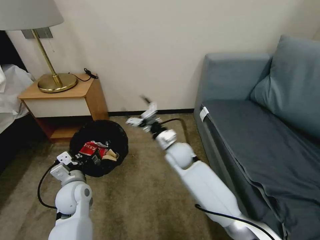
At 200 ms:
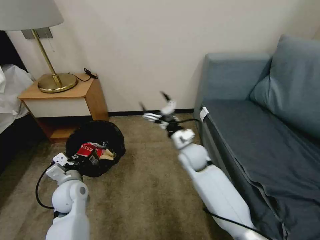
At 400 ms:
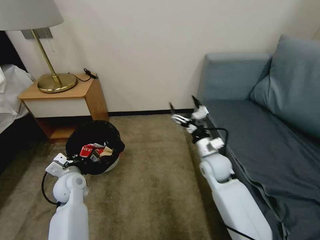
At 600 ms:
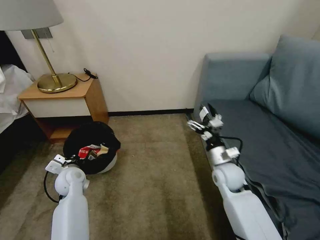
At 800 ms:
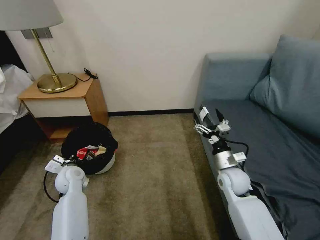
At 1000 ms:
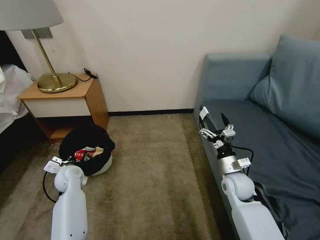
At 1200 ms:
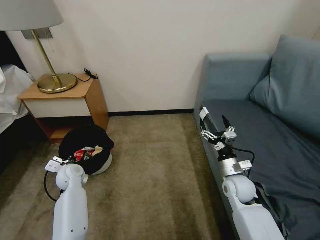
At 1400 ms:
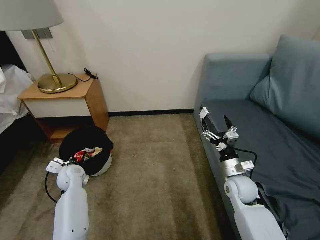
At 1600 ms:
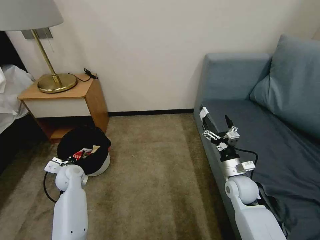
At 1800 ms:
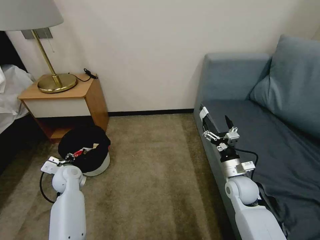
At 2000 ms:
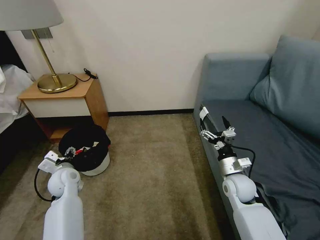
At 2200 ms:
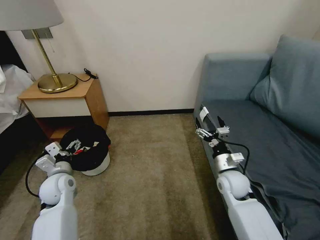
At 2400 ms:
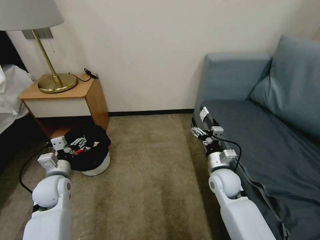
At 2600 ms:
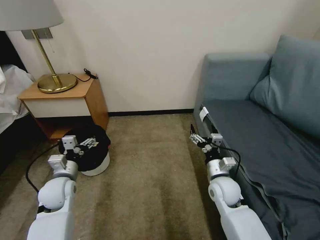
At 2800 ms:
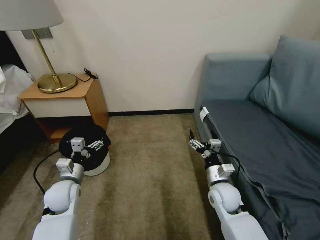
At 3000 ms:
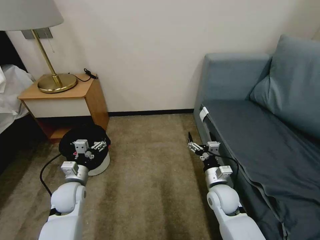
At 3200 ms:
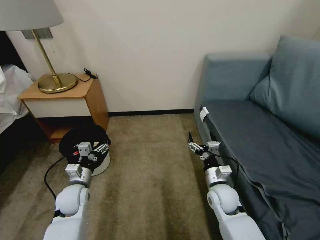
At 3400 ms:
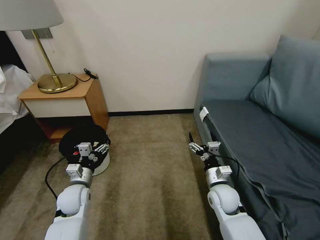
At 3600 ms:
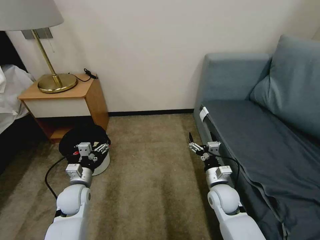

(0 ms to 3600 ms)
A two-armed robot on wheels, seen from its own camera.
Task of the whole recording: Pick up the trash bin, then pick up the garbage on the floor and place it into the trash bin.
0 ms - 1800 ms: The right gripper shifts about 25 cm to the right and backward; the left gripper heads forward and to the left, covering some 10 cm, and opens.
1800 ms - 3600 ms: The left gripper heads backward and to the right, covering approximately 10 cm, and opens its fingers; the right gripper is displaced to the left by approximately 5 cm.

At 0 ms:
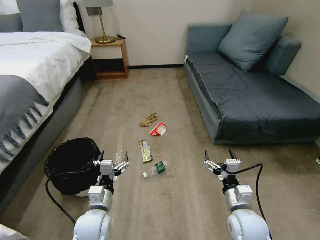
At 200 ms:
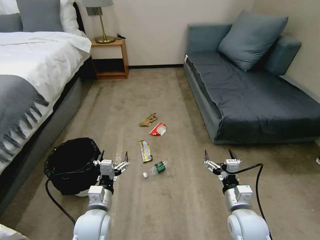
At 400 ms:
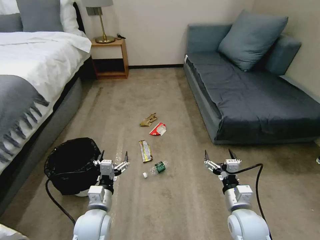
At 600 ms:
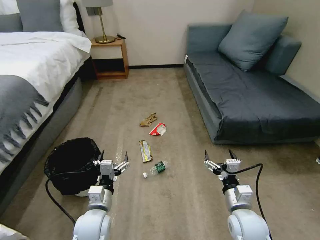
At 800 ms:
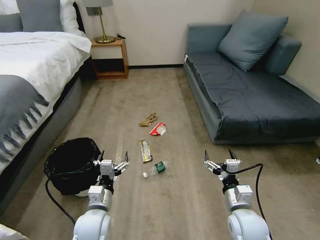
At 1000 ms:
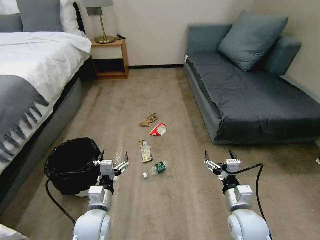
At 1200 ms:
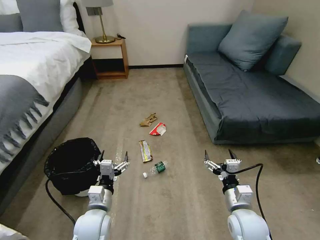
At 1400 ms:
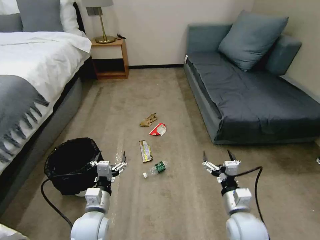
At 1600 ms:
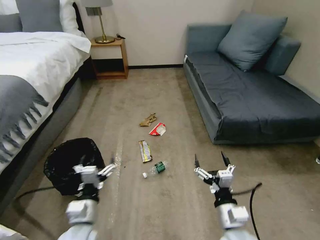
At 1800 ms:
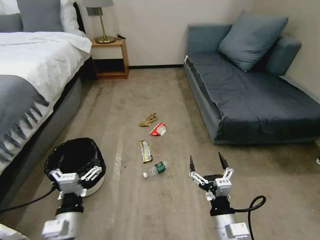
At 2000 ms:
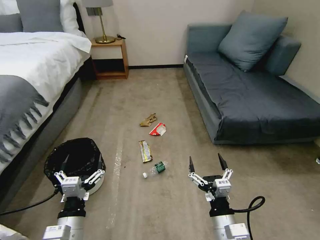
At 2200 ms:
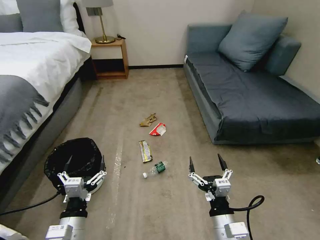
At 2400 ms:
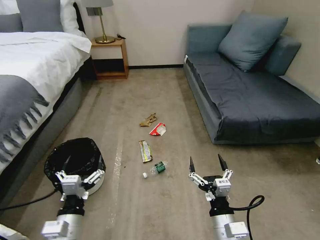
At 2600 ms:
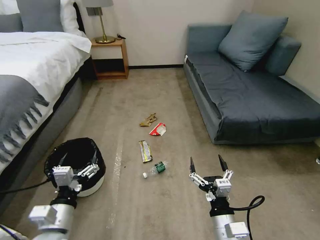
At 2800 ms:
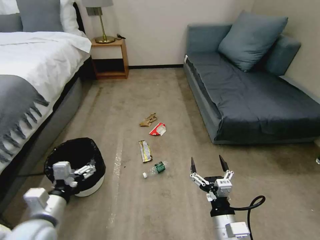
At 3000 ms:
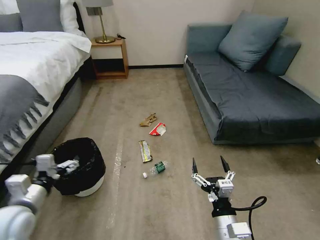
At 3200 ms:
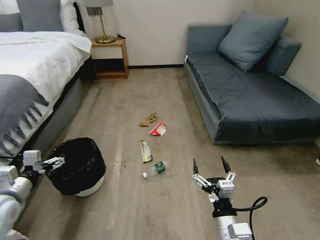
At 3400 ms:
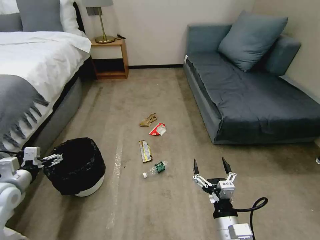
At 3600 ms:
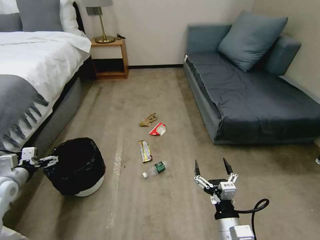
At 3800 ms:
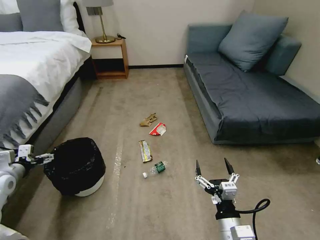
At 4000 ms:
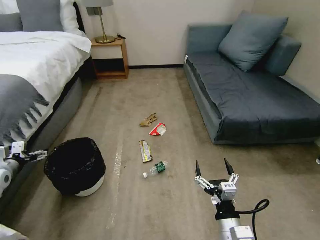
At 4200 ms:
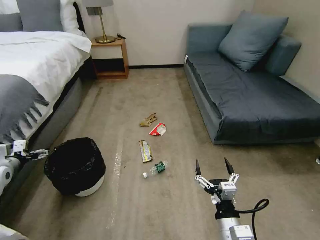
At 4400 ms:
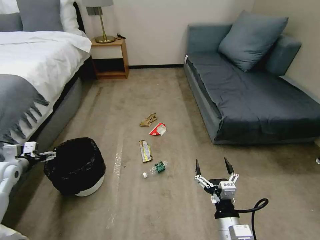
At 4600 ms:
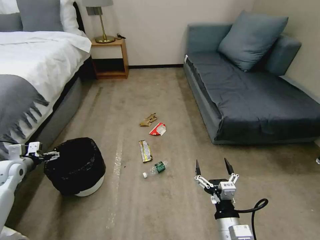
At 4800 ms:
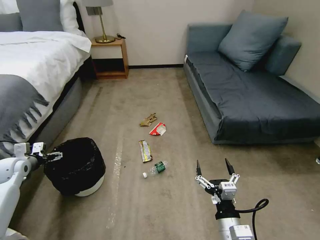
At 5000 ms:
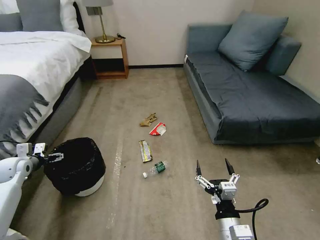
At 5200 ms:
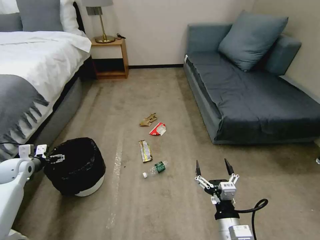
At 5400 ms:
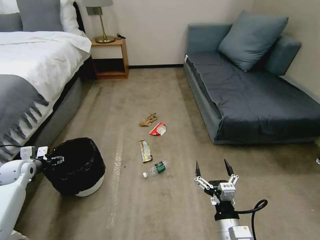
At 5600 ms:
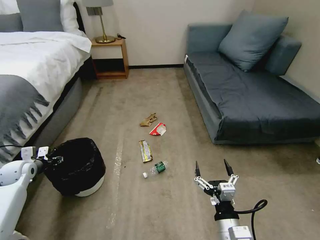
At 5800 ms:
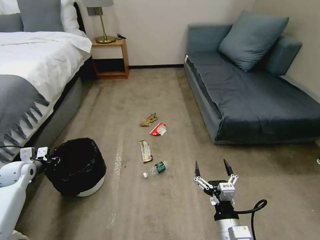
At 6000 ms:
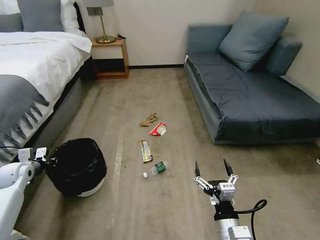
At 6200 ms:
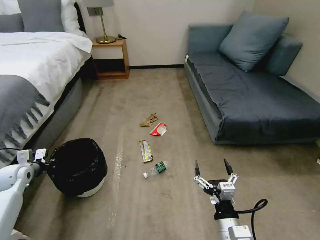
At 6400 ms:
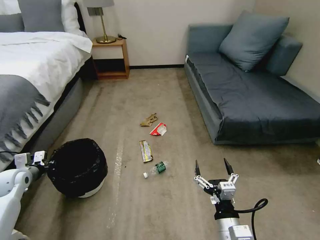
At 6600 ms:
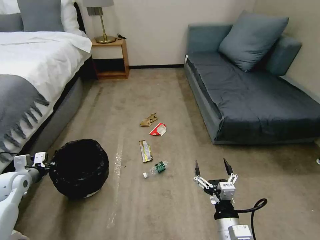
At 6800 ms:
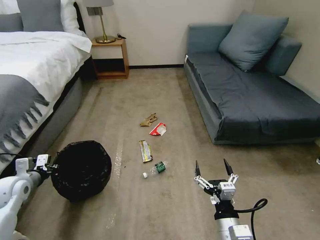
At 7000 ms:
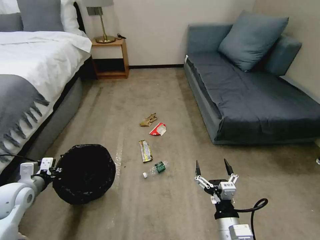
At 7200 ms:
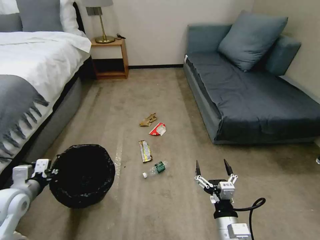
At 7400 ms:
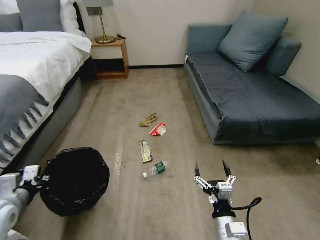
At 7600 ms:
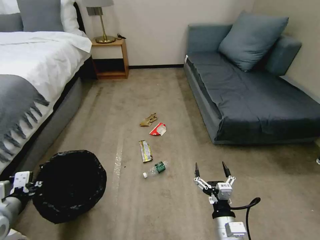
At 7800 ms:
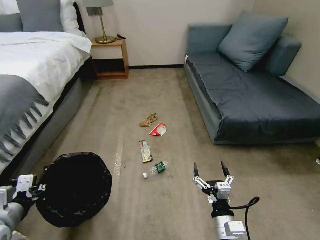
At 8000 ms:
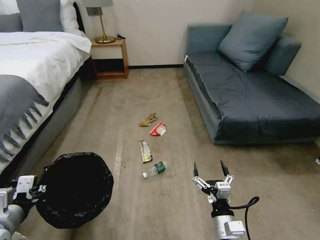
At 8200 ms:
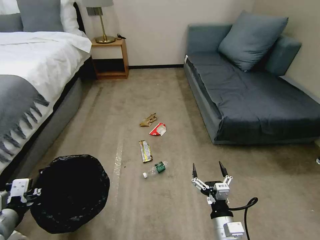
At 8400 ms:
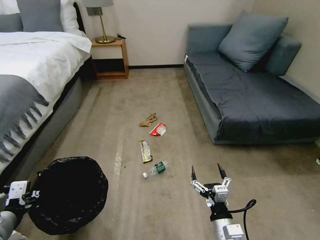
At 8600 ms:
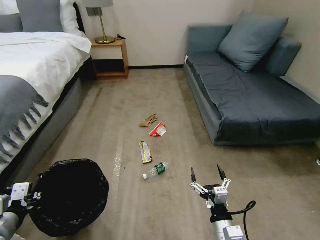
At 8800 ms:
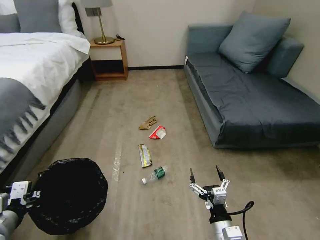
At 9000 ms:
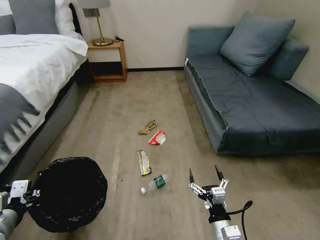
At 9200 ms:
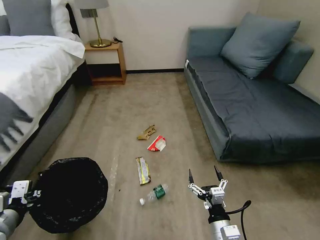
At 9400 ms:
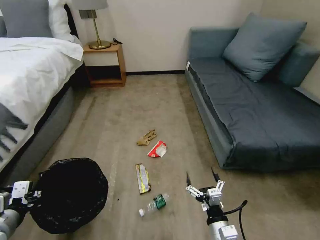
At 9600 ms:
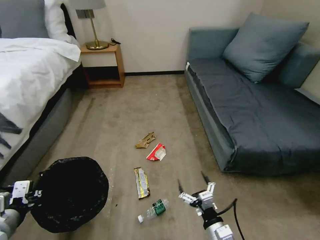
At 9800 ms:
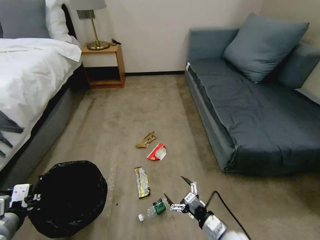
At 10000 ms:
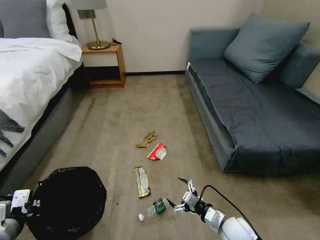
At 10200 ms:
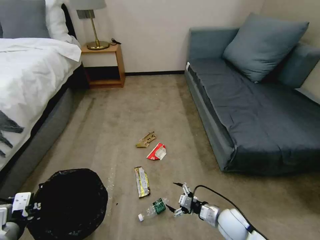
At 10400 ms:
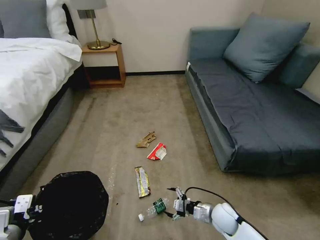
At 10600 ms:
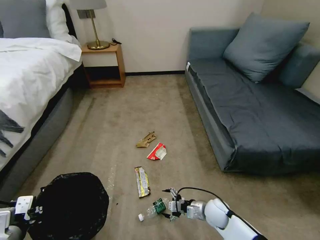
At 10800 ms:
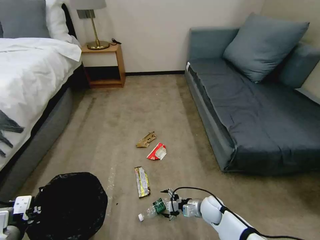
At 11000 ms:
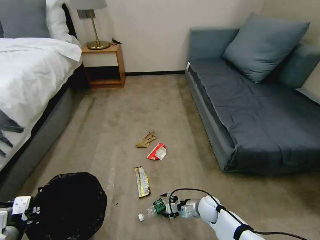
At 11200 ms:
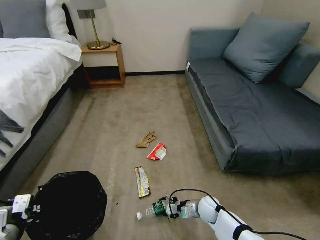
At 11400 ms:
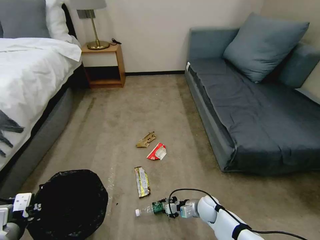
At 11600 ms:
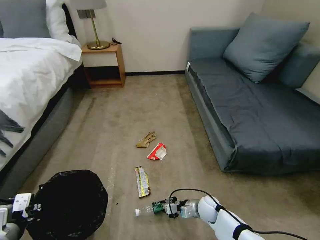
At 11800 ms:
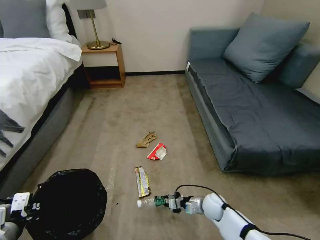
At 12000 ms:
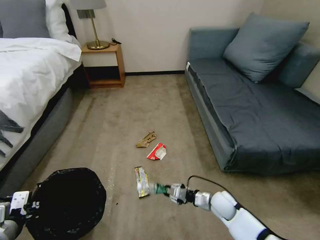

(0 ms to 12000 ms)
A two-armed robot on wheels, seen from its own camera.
Task of the whole recording: Pick up the trash bin, then pick up the garbage on the floor and place it into the trash bin.
1600 ms - 3000 ms: The left gripper shifts roughly 15 cm to the left and upward.
3000 ms - 4400 ms: The left gripper moves to the left and forward, approximately 20 cm.
4400 ms - 6000 ms: The left gripper closes up.
6000 ms - 7600 ms: The left gripper heads backward, to the right and upward, covering some 20 cm.
9000 ms - 10400 ms: The right gripper shifts roughly 15 cm forward and downward.
10400 ms - 12000 ms: The right gripper closes its fingers.

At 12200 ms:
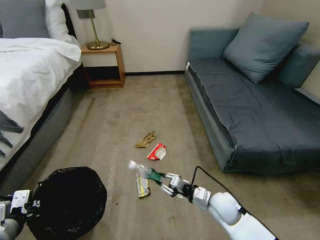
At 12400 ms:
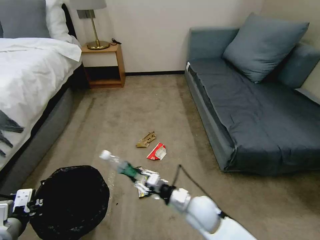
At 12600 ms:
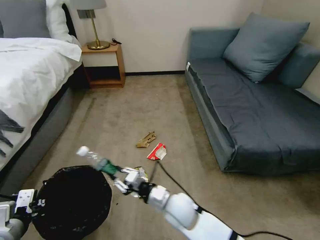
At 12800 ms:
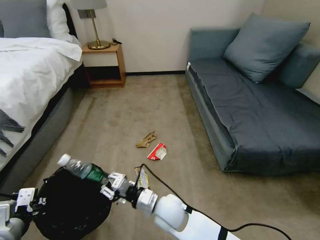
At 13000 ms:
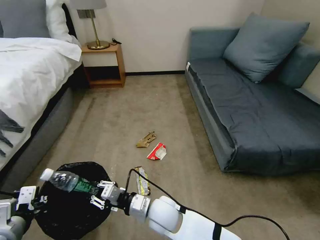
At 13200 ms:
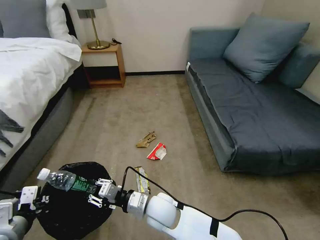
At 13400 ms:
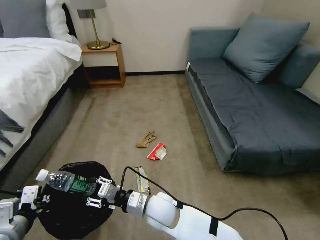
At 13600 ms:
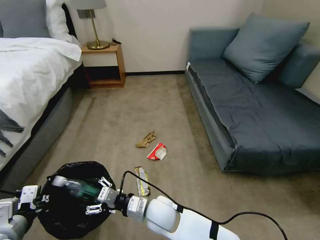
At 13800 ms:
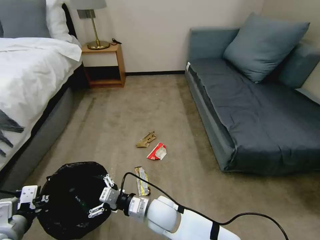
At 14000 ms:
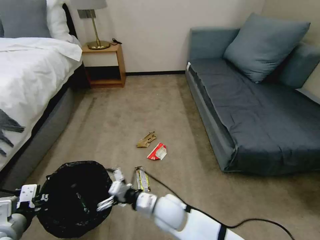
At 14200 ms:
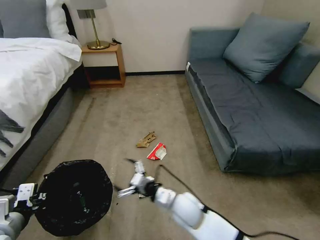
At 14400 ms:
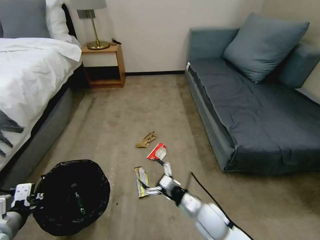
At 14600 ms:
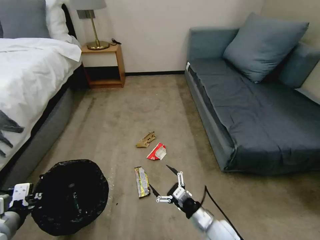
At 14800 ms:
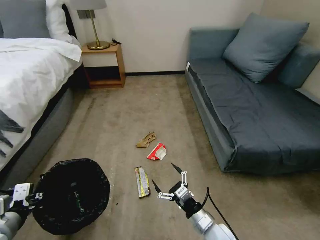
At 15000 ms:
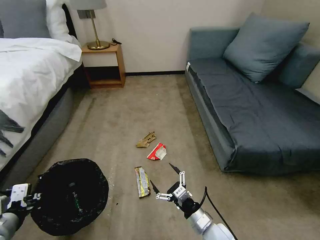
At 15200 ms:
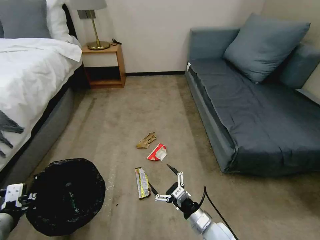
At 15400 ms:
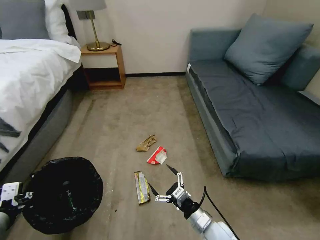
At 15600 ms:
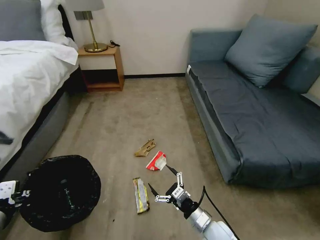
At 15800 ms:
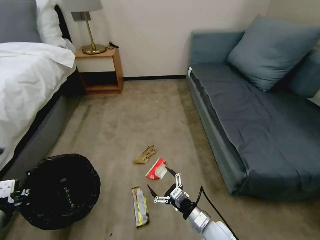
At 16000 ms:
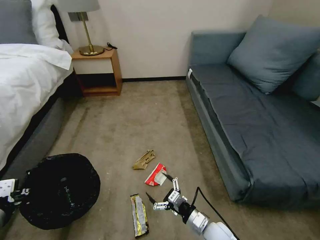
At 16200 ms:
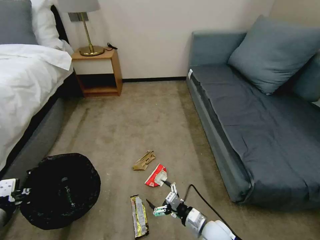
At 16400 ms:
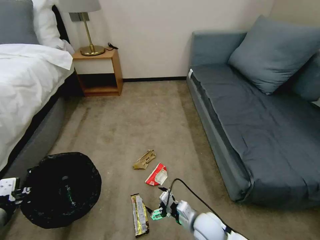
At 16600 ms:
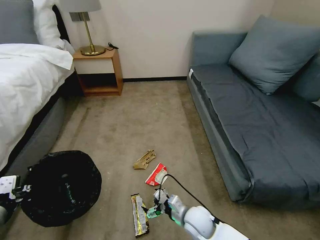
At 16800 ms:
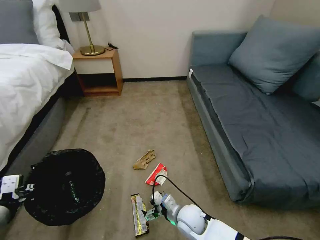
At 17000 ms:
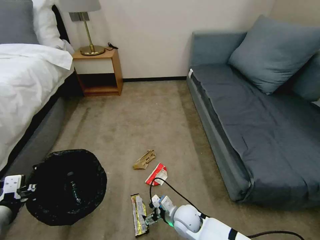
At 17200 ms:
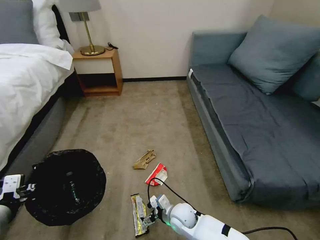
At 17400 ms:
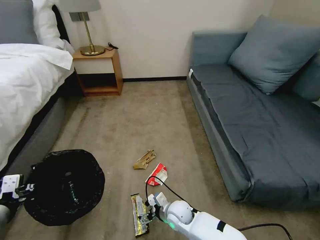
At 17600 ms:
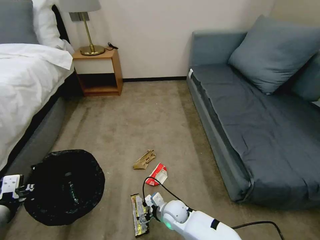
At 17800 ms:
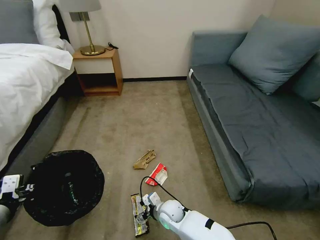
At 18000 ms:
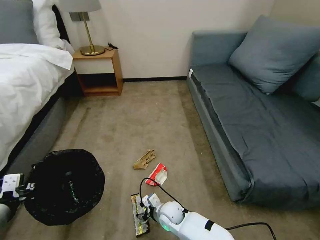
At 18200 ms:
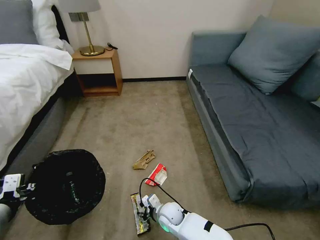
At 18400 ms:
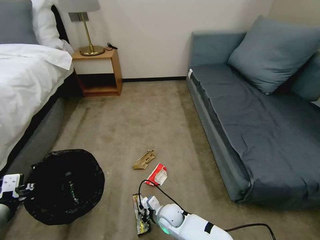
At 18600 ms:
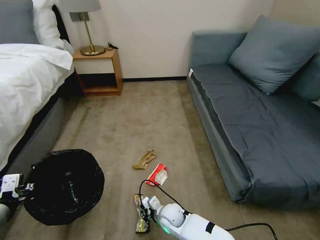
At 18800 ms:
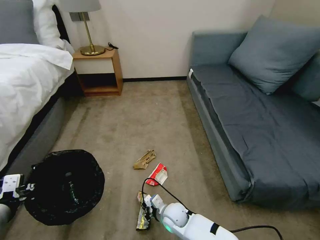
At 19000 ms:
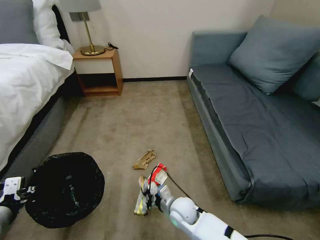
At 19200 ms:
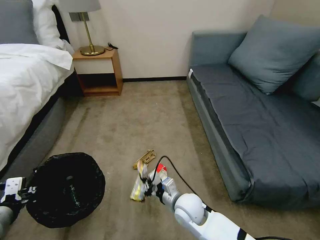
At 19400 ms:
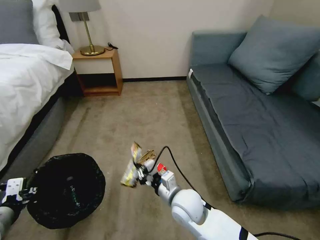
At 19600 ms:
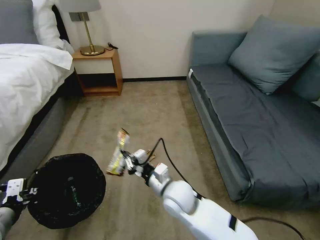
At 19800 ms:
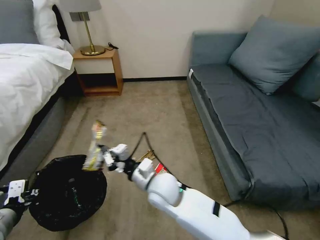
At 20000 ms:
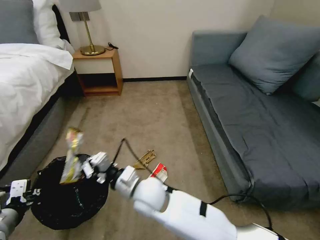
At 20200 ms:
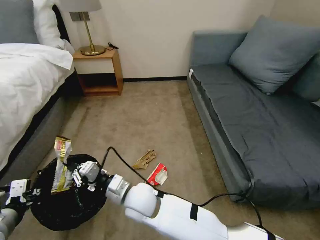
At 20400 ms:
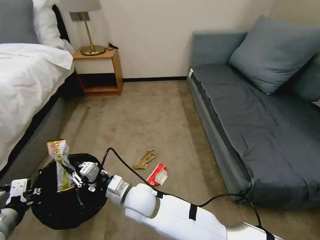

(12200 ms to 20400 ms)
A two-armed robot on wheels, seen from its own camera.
Task of the whole recording: Pick up the trash bin, then pick up the garbage on the floor and place it into the trash bin.
12200 ms - 13800 ms: The right gripper goes approximately 20 cm to the left, and opens.
13800 ms - 15400 ms: The right gripper goes about 20 cm to the right.
15400 ms - 17200 ms: The right gripper goes roughly 15 cm to the left, forward and downward.
17200 ms - 18800 ms: The right gripper closes up.
18800 ms - 20400 ms: The right gripper goes about 25 cm upward and to the left.
